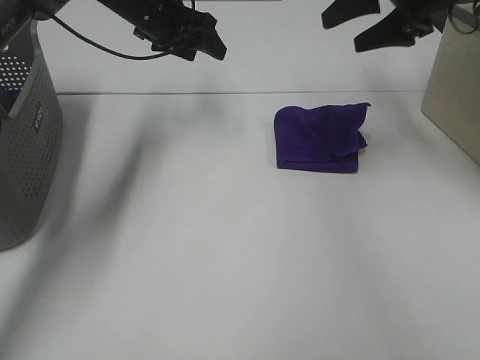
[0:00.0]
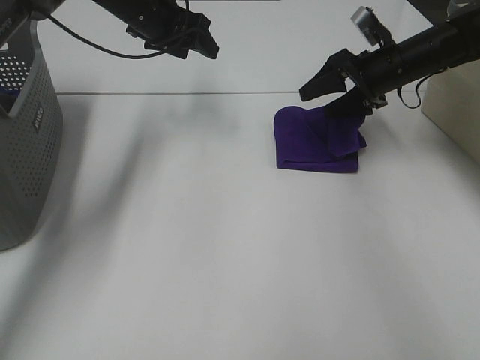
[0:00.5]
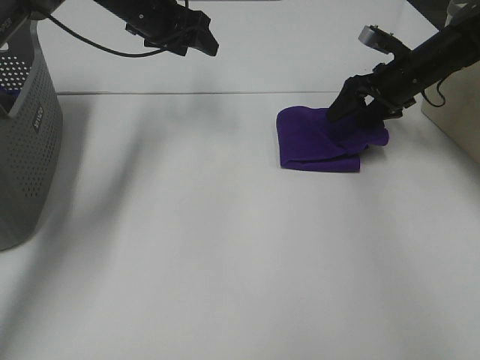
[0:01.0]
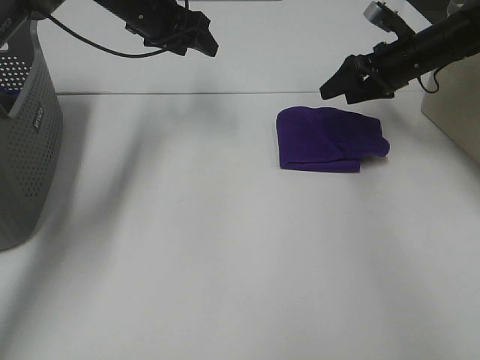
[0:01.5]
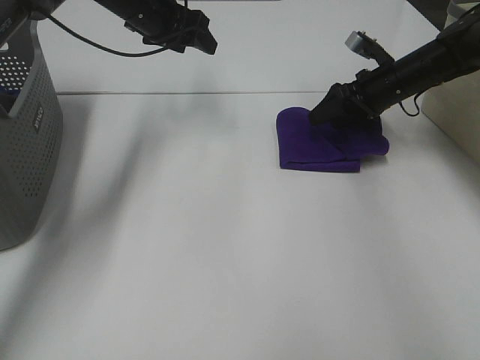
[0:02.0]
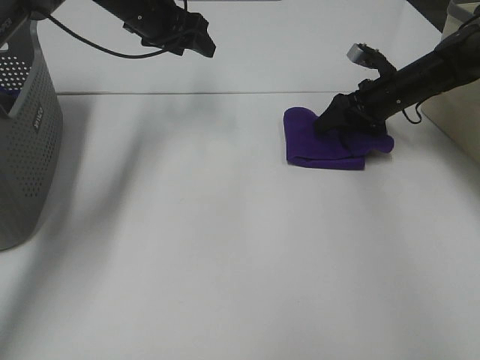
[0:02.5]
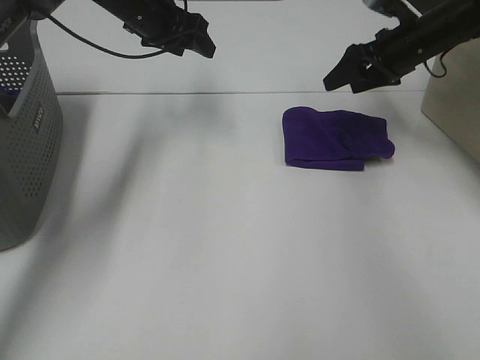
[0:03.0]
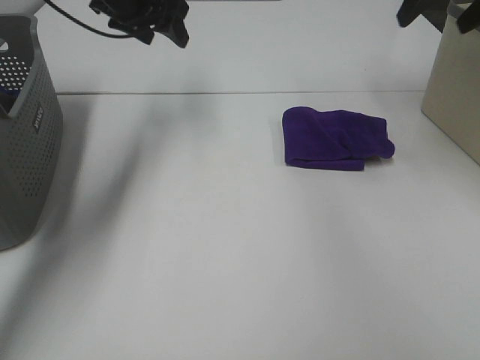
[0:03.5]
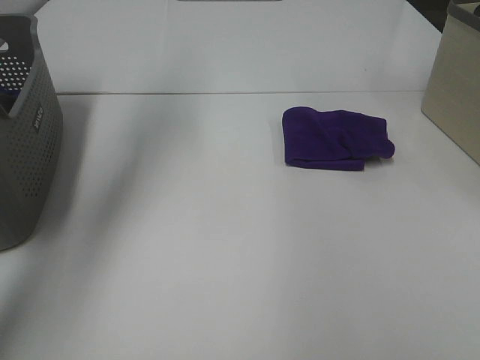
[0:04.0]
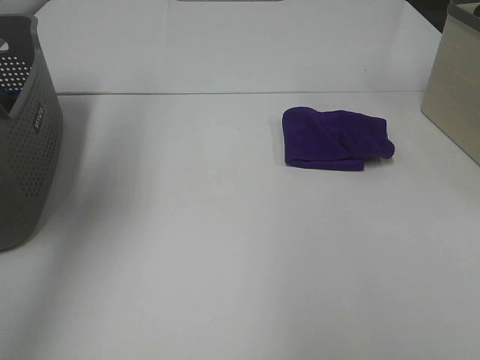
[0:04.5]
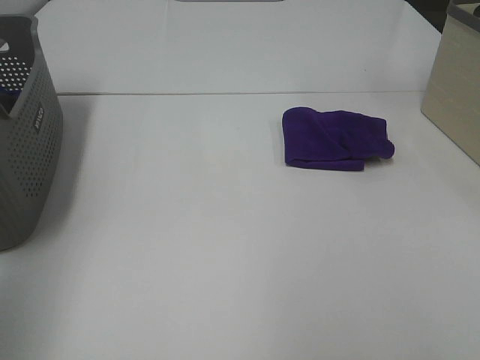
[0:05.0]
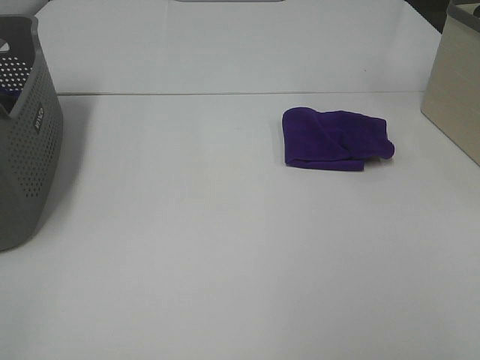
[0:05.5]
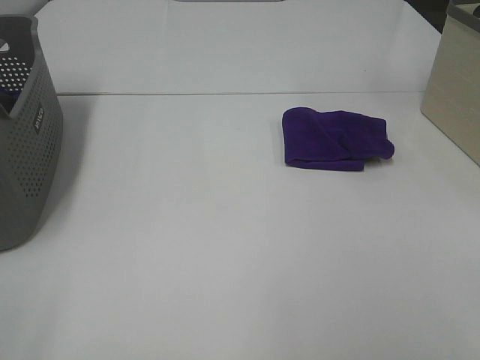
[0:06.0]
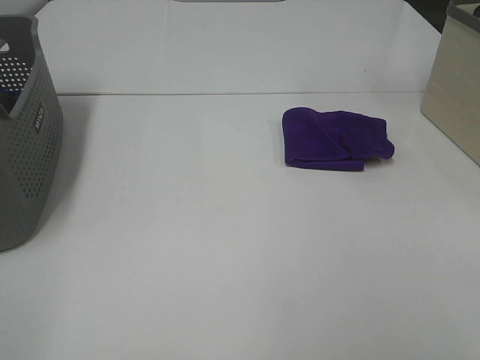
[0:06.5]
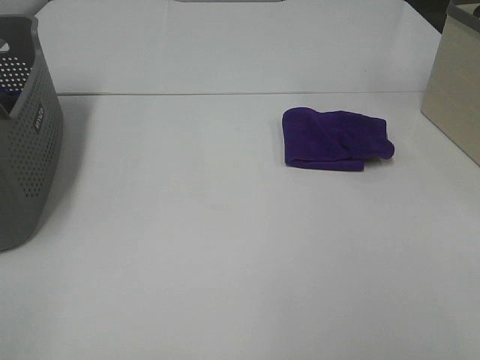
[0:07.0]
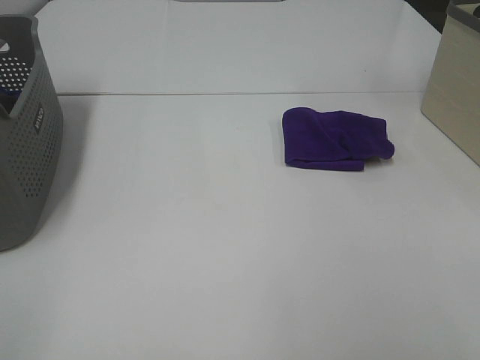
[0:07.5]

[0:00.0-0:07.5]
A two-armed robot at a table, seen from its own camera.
Task of the whole recording: Fold towels.
Step, 0:00.0 to 0:02.5: Right hand: adjust the purple towel.
0:00.0 to 0:02.0: The right gripper shifts approximately 15 cm downward.
0:02.0 to 0:04.0: The right gripper goes some 35 cm upward and backward, and closes up. Meanwhile the left gripper moves upward and backward, roughly 20 cm, and closes up.
0:04.0 to 0:05.5: Both grippers move backward, some 40 cm. The right gripper opens, while the left gripper opens its fingers.

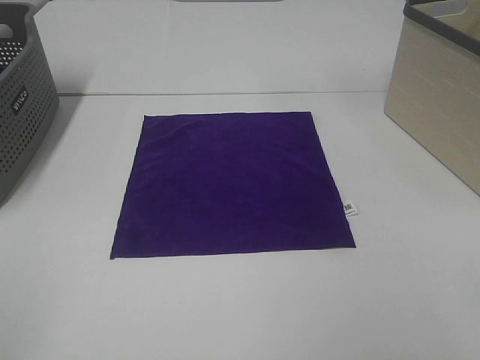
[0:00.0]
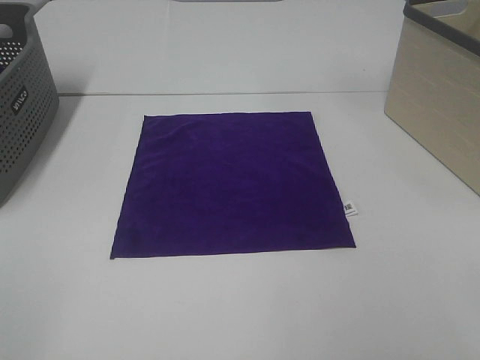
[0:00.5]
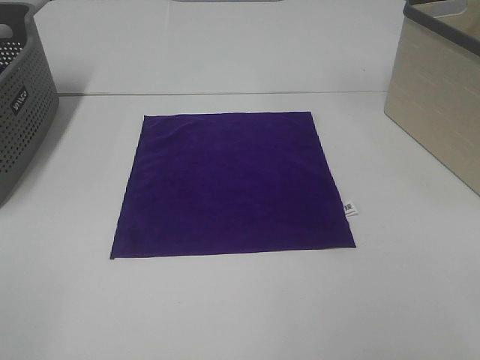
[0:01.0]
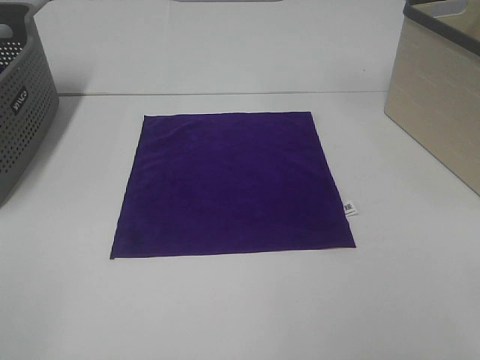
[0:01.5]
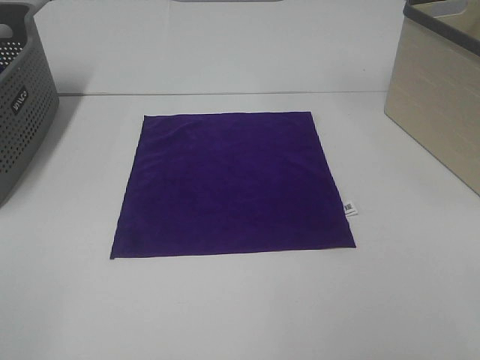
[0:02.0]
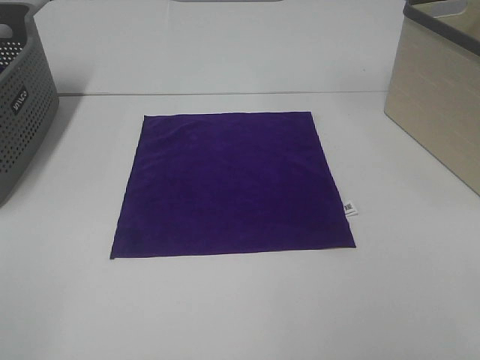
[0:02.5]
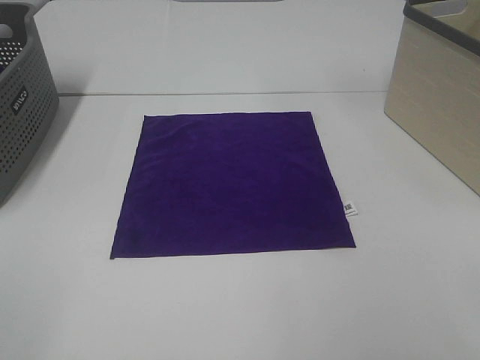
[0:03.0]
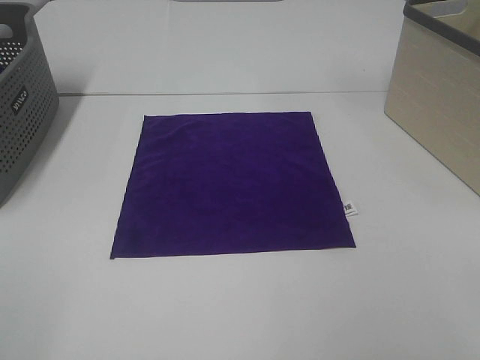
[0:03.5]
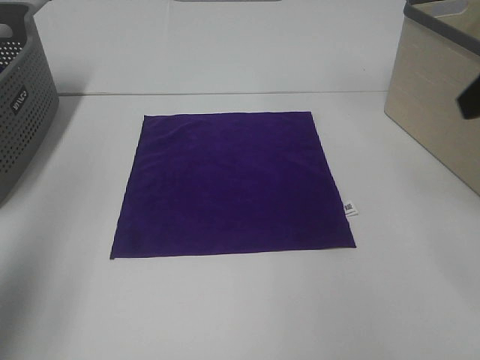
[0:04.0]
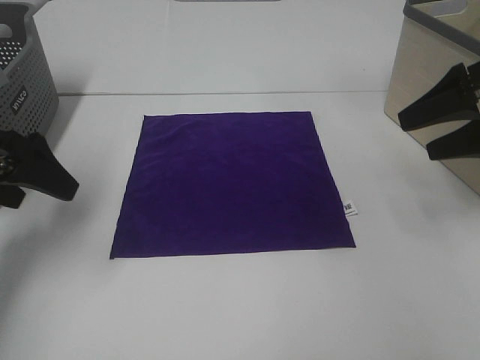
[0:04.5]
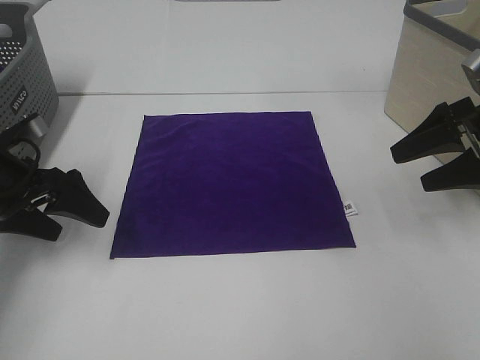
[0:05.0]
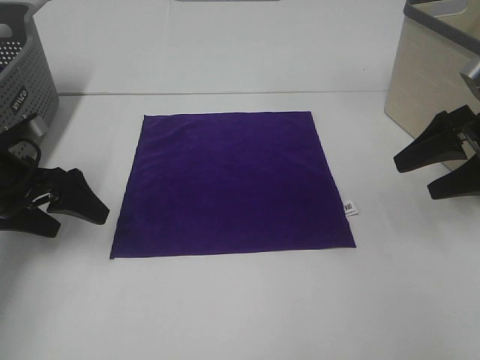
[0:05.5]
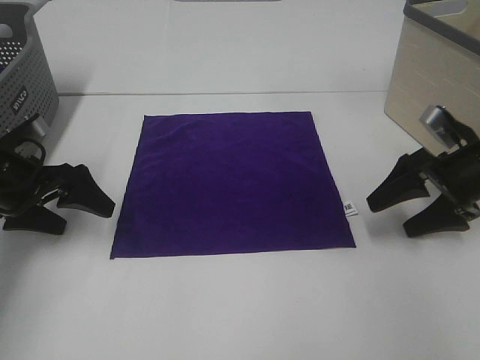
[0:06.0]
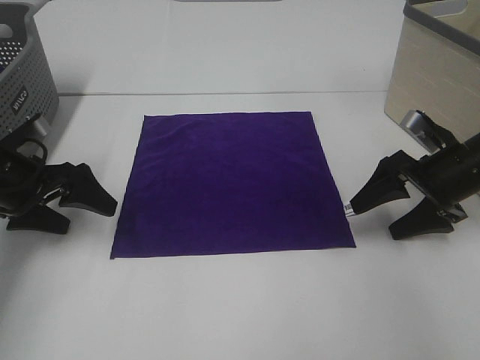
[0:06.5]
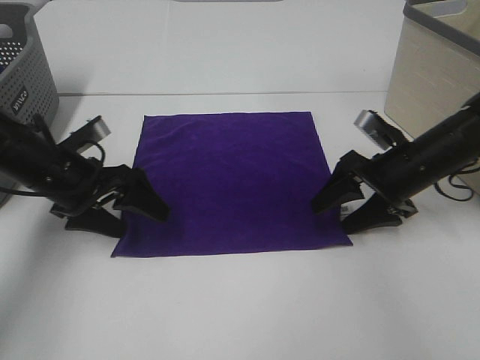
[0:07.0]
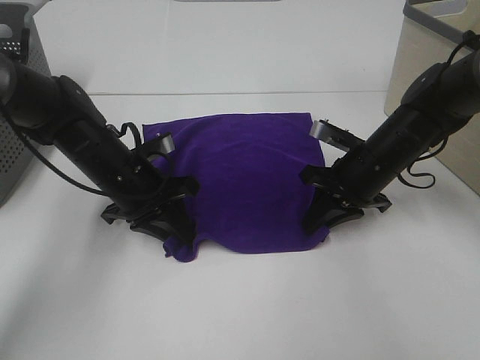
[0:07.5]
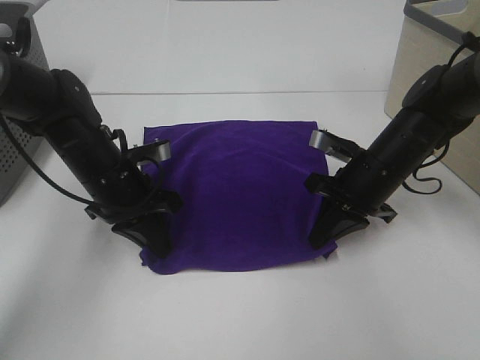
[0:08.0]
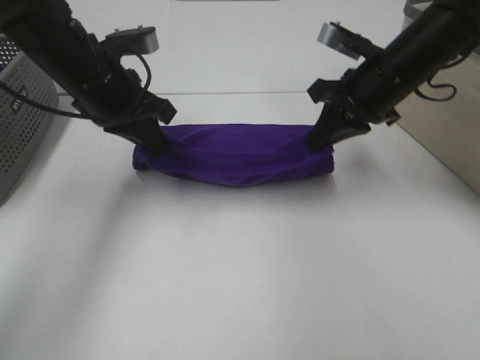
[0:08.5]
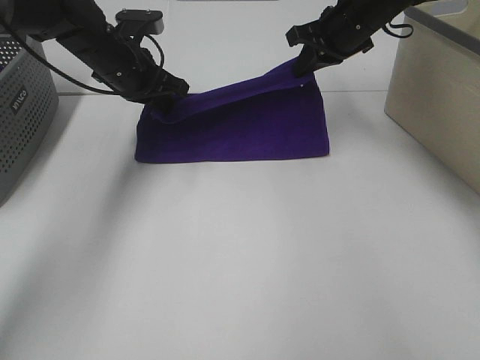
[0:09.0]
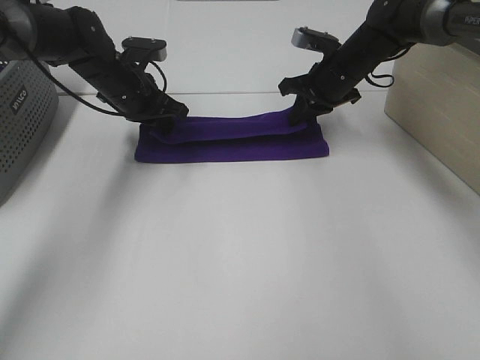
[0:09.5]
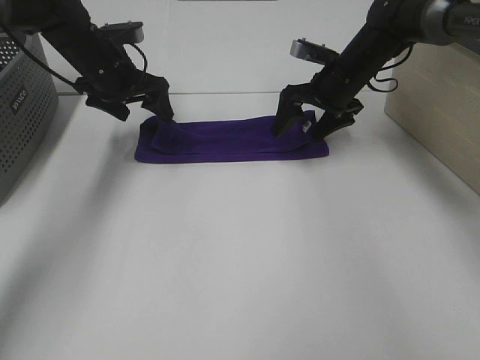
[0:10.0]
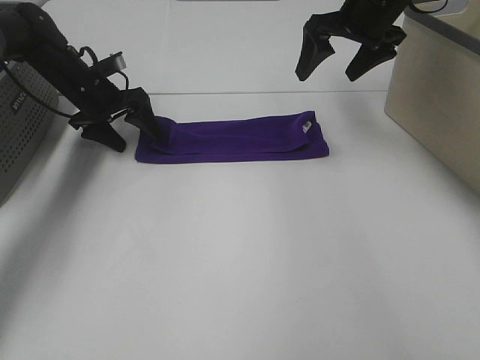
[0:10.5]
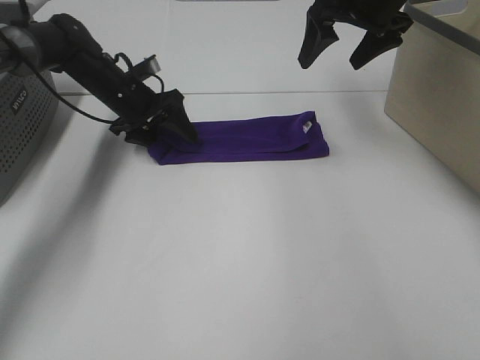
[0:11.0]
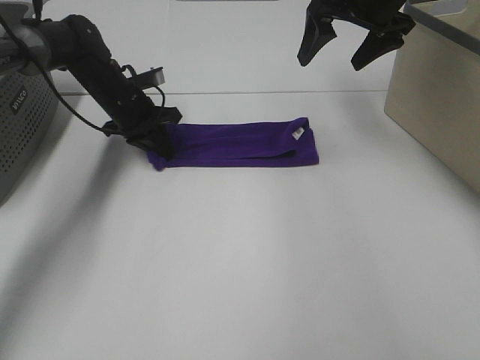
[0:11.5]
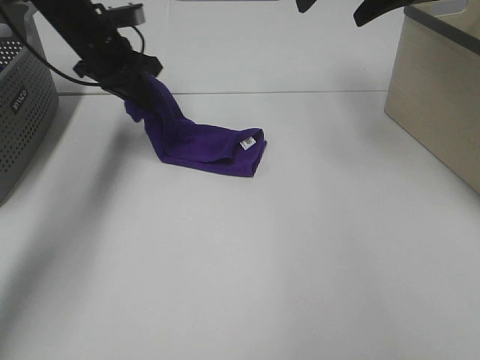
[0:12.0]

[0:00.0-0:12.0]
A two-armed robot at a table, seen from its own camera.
Task of the whole recording: Fold towels.
Step, 0:00.0 to 0:07.5: Left hand: grab the bottom left corner of purple towel.
Step, 0:00.0 to 0:07.5: Right hand: grab the bottom right corner of purple towel.
Step, 0:08.0 to 0:09.5: Left hand: fold the purple towel up.
Step, 0:08.0 to 0:09.5: Right hand: fold the purple towel up.
0:00.0 to 0:02.0: The two grippers keep their place.
0:02.0 to 0:04.0: Both grippers travel together forward, approximately 20 cm.
0:04.0 to 0:06.0: Both grippers travel together downward and forward, roughly 25 cm.
0:06.0 to 0:08.0: The right gripper shifts about 10 cm to the left, and closes. Meanwhile the left gripper travels to the right by about 15 cm, and closes its fingers.
0:08.0 to 0:10.0: The right gripper is displaced forward by approximately 15 cm, and opens its fingers. Meanwhile the left gripper goes some 15 cm forward and upward, and opens its fingers.
0:10.0 to 0:12.0: The left gripper goes downward and returns, some 5 cm each way, and closes; the right gripper goes some 20 cm upward.

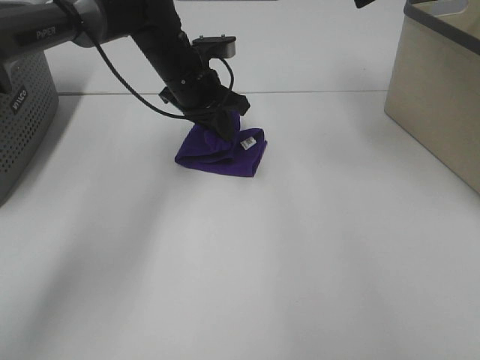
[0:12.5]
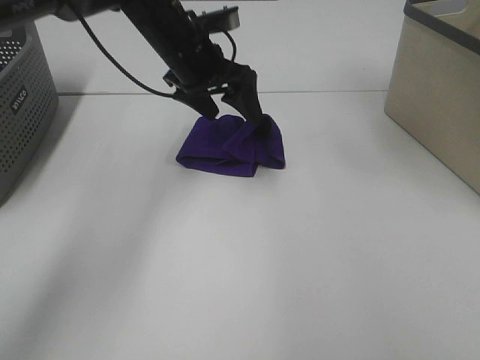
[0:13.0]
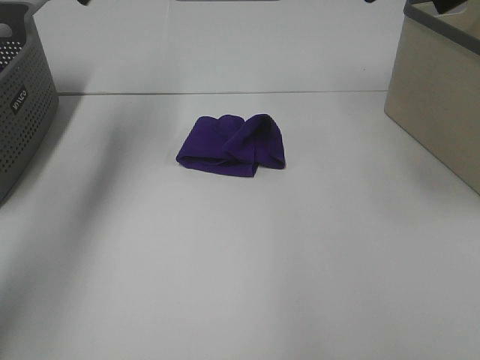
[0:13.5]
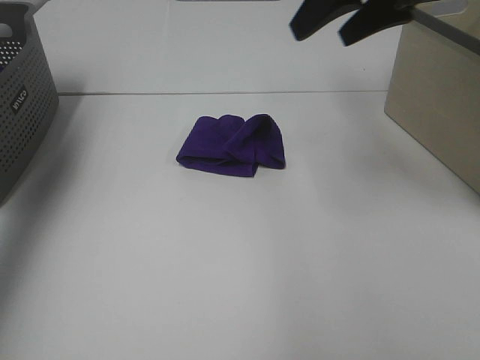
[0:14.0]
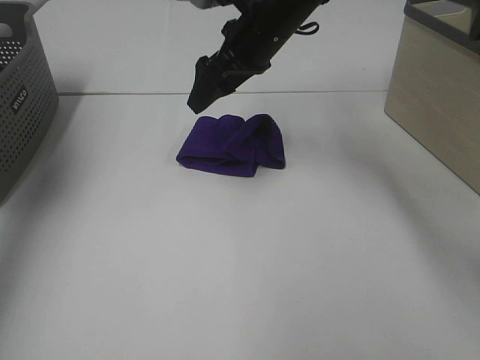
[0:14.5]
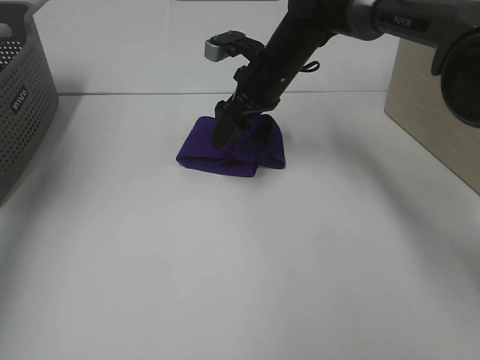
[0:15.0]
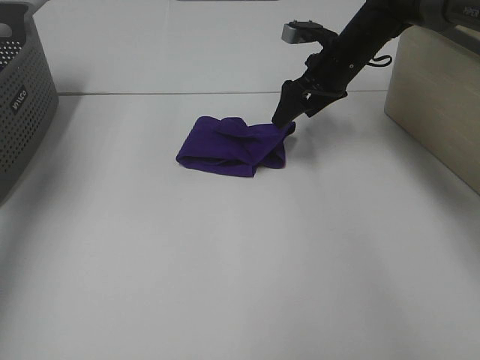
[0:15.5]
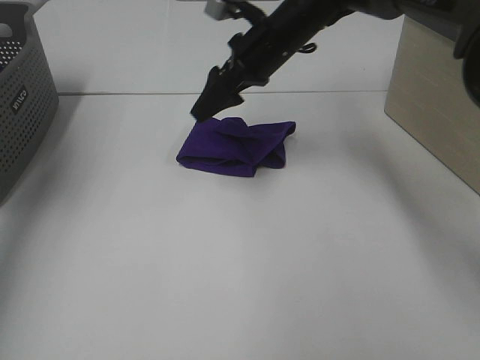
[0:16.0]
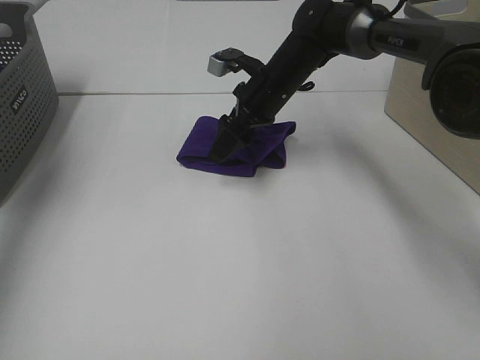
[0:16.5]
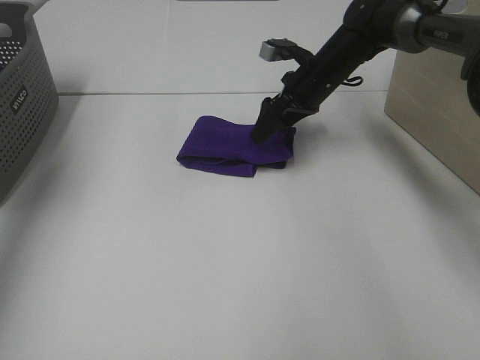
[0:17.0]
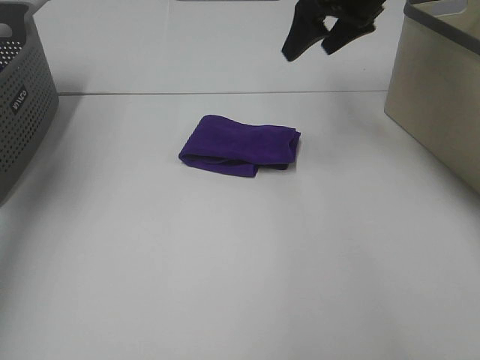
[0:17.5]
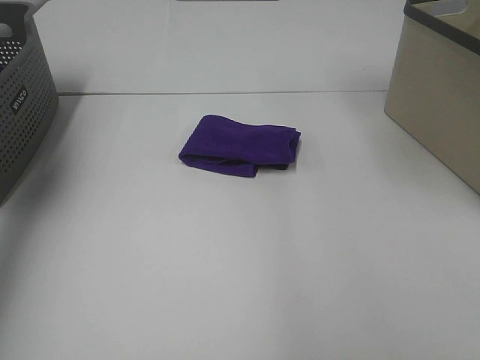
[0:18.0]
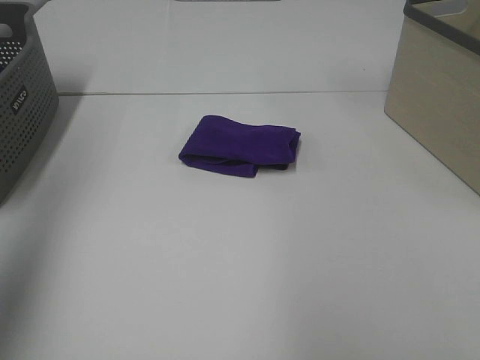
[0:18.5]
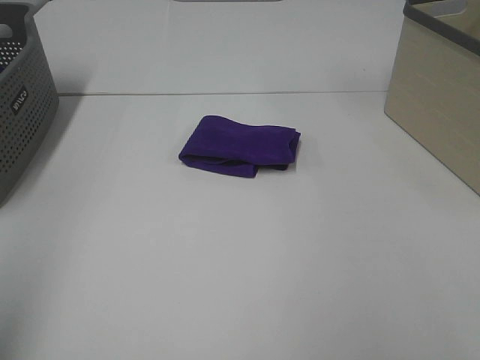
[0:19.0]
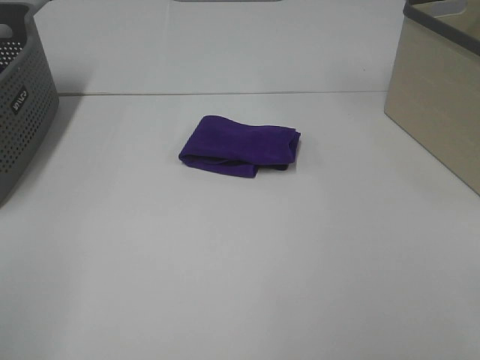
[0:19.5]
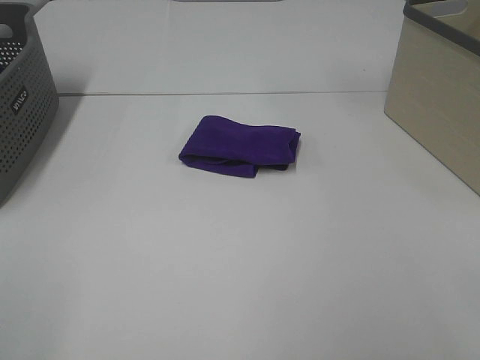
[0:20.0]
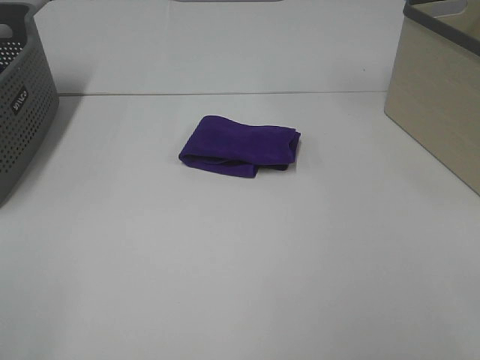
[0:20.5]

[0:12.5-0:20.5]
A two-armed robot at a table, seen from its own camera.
Task of the whole recording: Fold towels.
Step, 0:13.0 to 0:17.0: Right hand: adjust the purple towel.
0:12.5 to 0:14.5: The right gripper is displaced to the left and downward by roughly 20 cm, while the left gripper is displaced to the left, upward and backward by approximately 40 cm, and opens.
0:14.5 to 0:16.5: The right gripper heads downward, covering roughly 10 cm, and travels to the right and back again, approximately 10 cm each way.
0:16.5 to 0:18.5: The left gripper moves backward, some 20 cm, while the right gripper goes approximately 50 cm backward, upward and to the right.
0:18.5 to 0:20.5: The left gripper moves backward and downward, about 20 cm.
